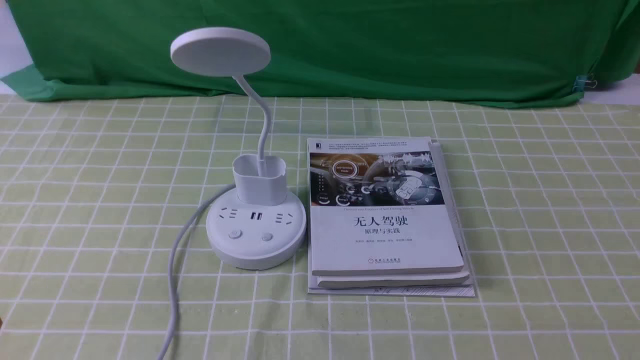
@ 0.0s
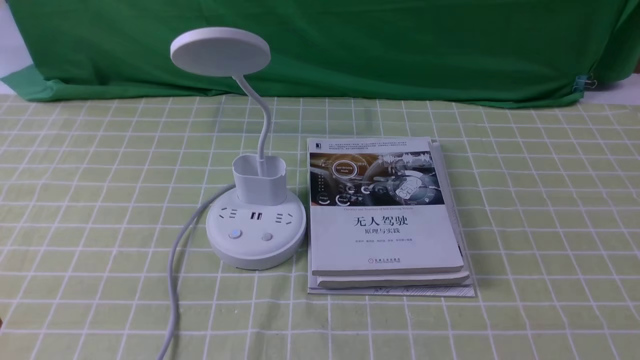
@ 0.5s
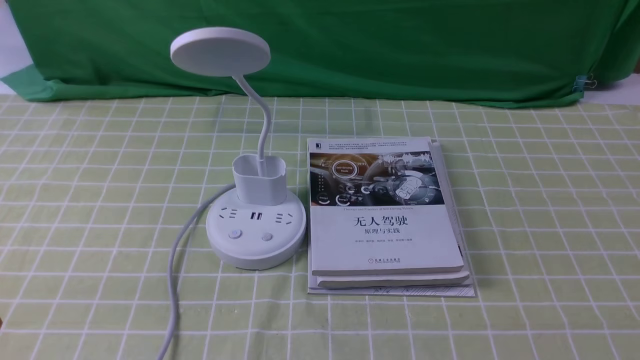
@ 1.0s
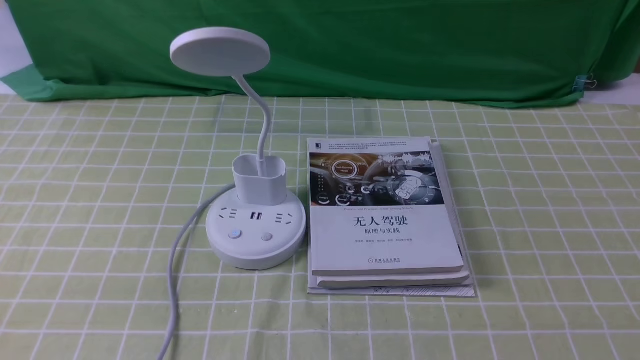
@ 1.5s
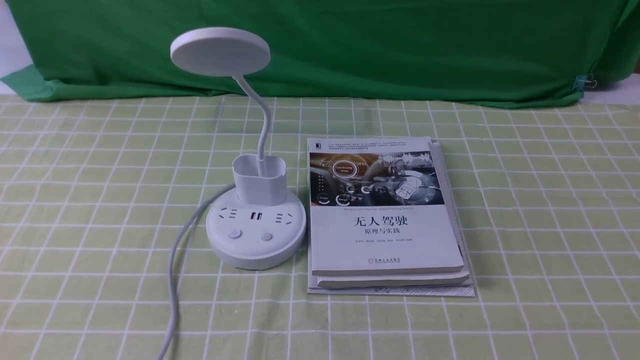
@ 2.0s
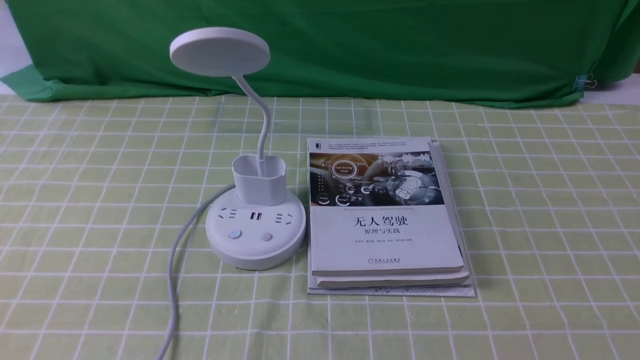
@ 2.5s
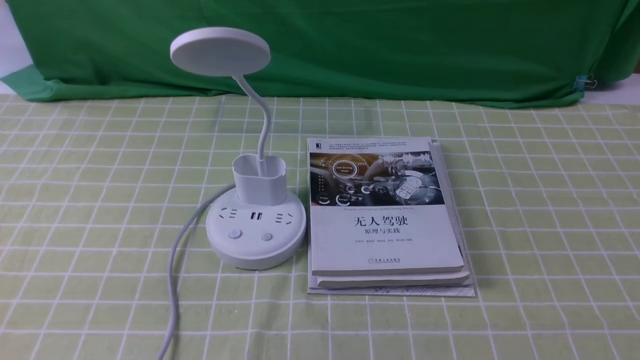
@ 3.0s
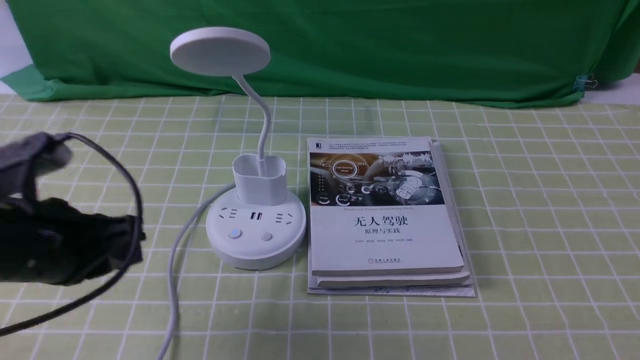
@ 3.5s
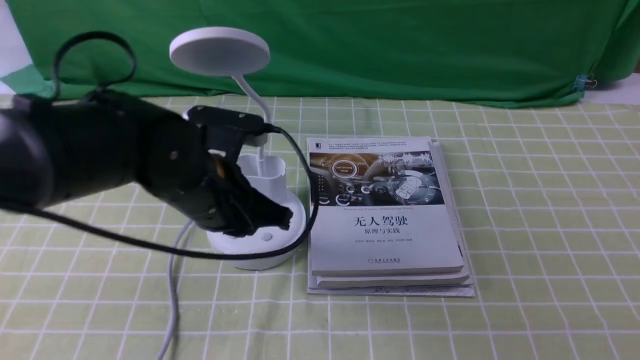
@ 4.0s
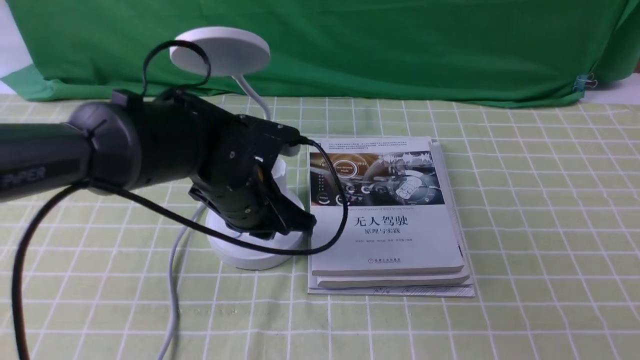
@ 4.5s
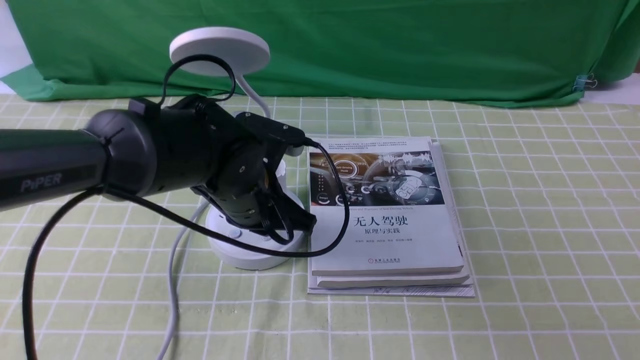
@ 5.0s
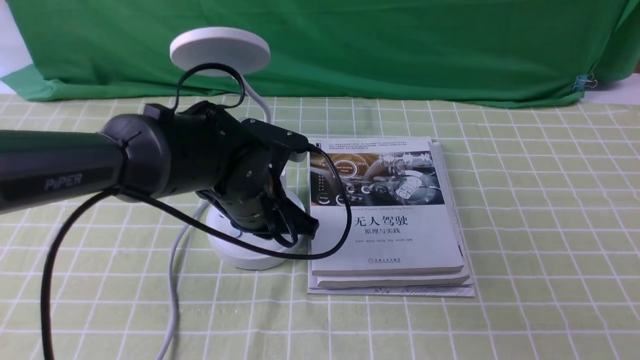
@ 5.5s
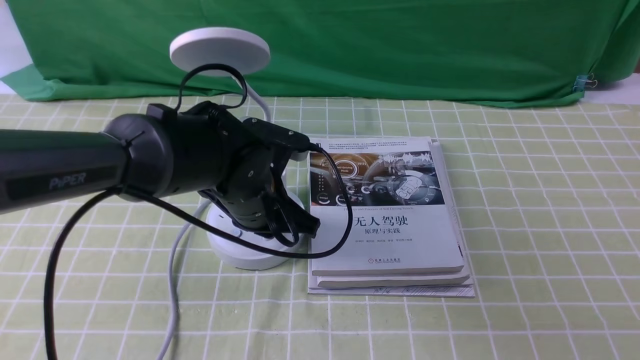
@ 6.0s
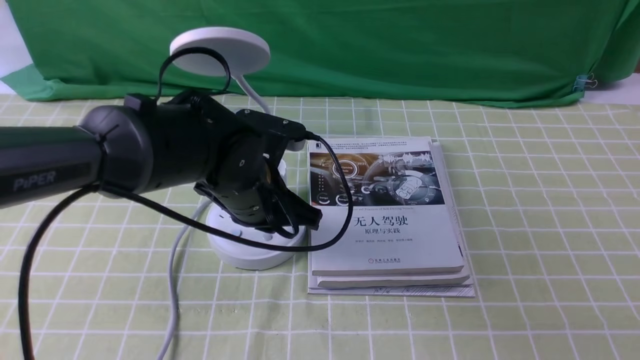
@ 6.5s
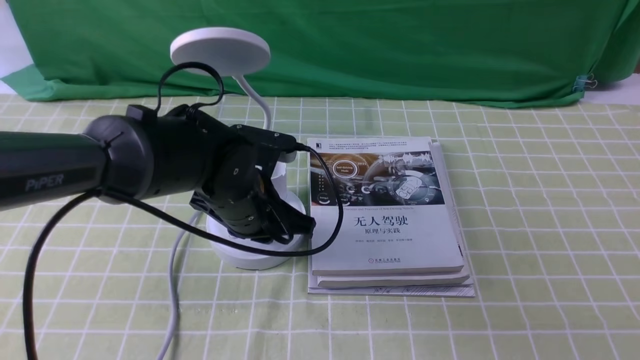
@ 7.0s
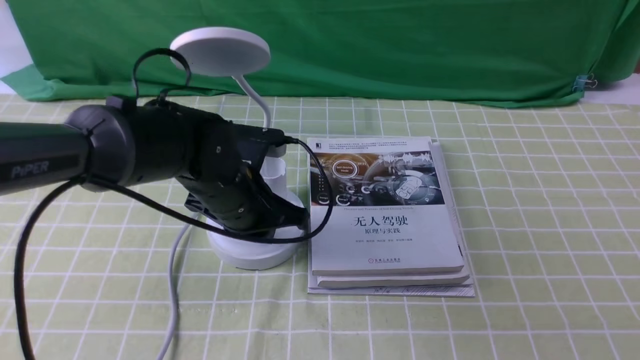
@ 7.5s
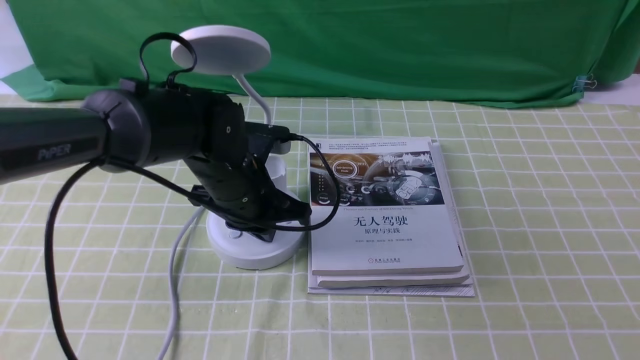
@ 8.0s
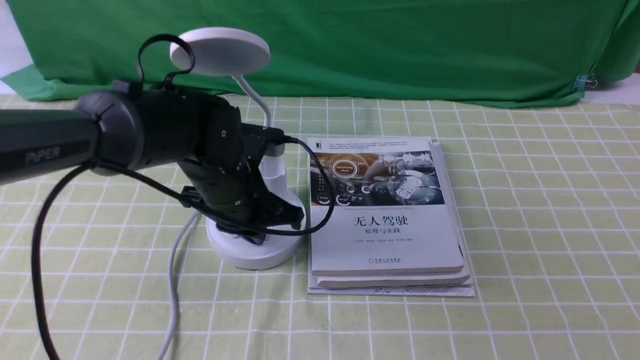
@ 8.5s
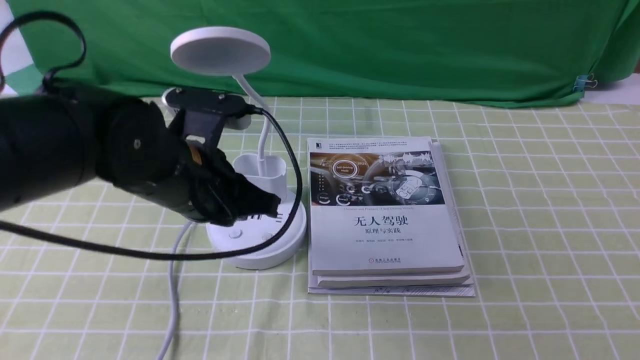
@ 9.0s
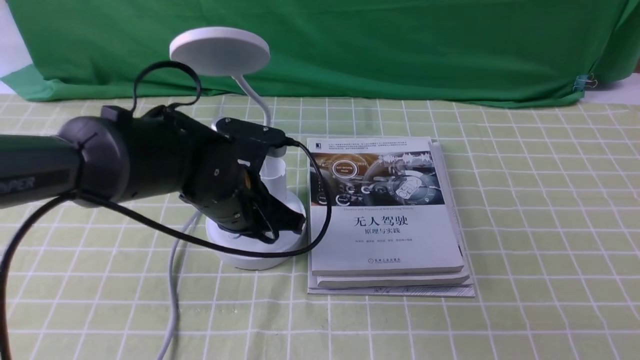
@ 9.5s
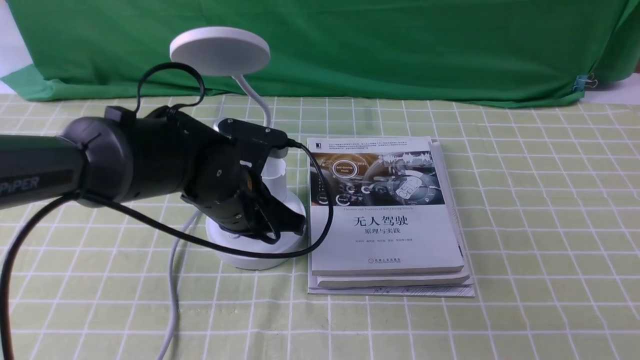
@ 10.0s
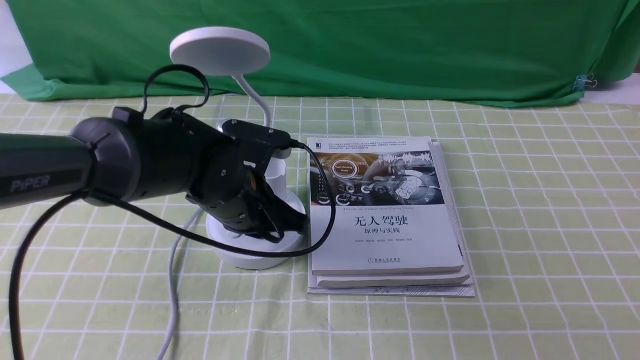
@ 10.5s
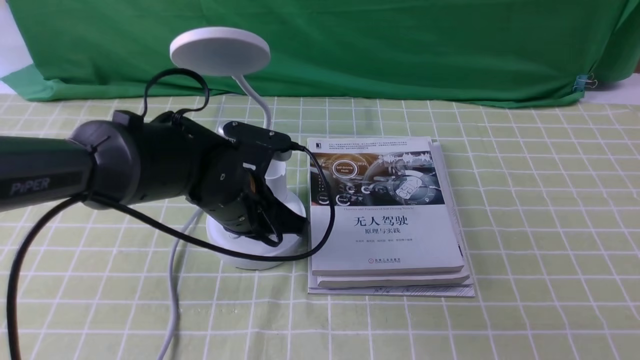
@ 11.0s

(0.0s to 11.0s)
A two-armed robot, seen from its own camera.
2.0s - 3.5s: The left gripper moves forward, some 15 cm, and opens.
3.5s - 5.5s: The left gripper heads to the right, forward and downward, covering some 20 cm, and closes.
5.5s - 7.5s: The grippers make only small movements.
7.5s - 9.0s: The left gripper shifts roughly 5 cm upward.
9.0s - 11.0s: The left gripper goes roughly 5 cm downward.

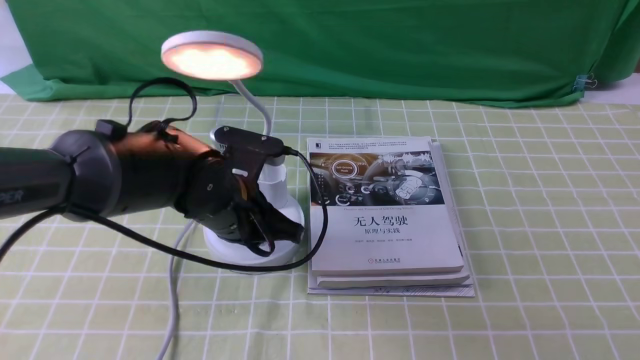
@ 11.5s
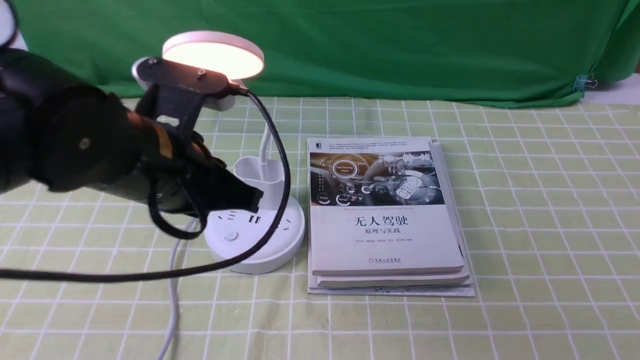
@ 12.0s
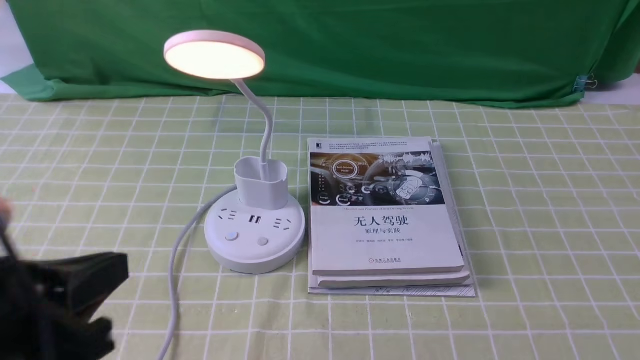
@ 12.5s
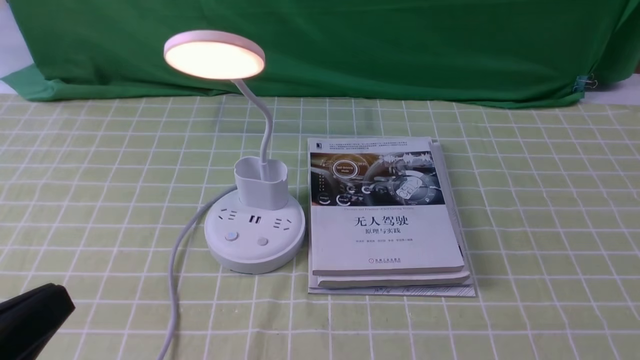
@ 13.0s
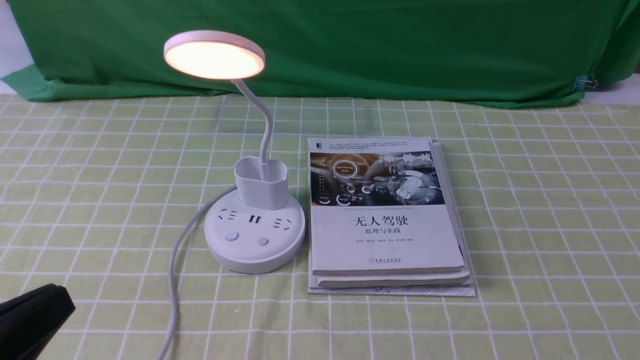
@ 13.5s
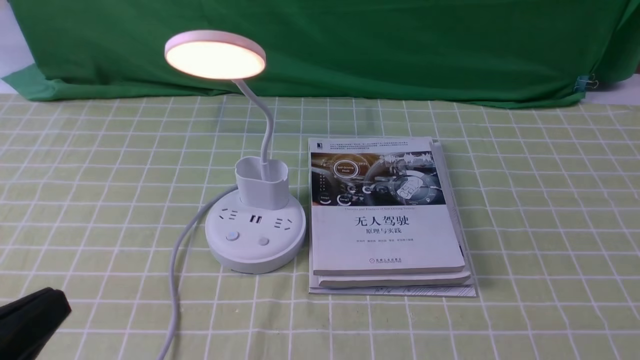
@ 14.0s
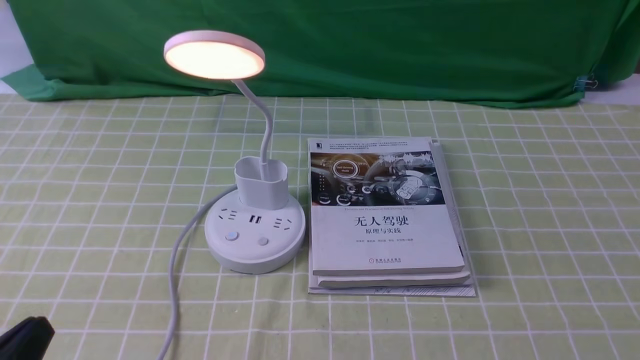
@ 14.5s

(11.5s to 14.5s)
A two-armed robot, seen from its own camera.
11.5s - 13.0s: The left gripper moves backward and to the left, roughly 30 cm.
13.0s - 14.5s: The left gripper moves downward, approximately 5 cm.

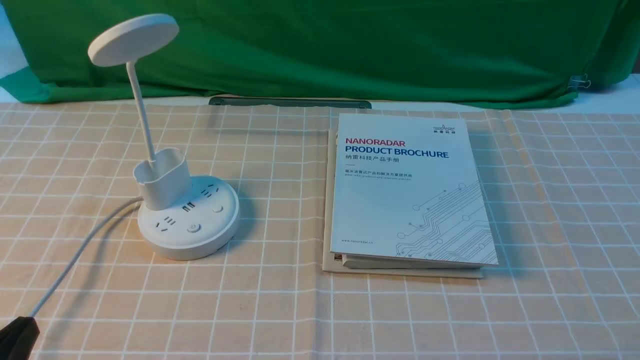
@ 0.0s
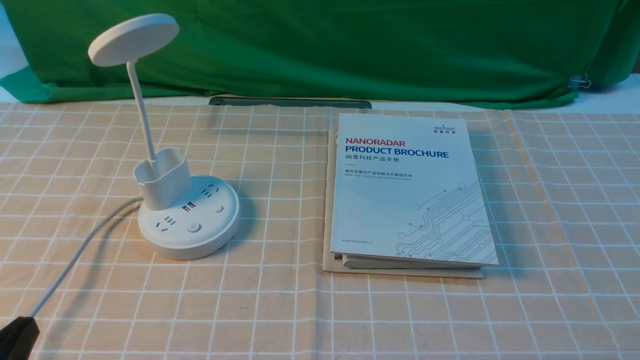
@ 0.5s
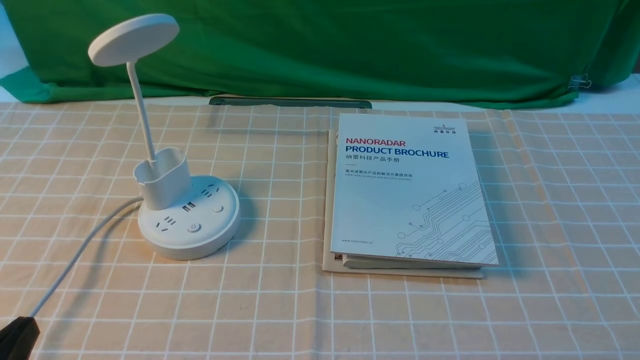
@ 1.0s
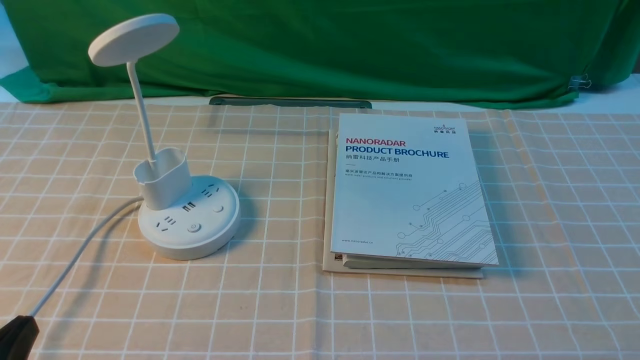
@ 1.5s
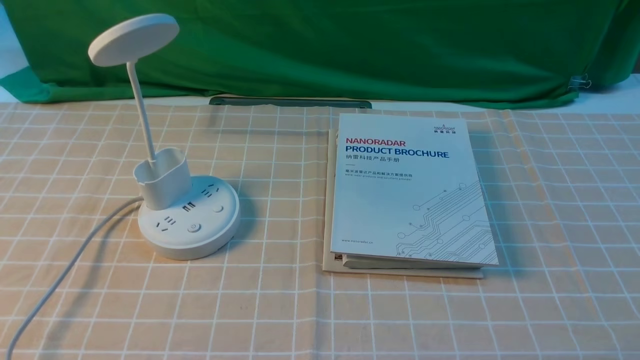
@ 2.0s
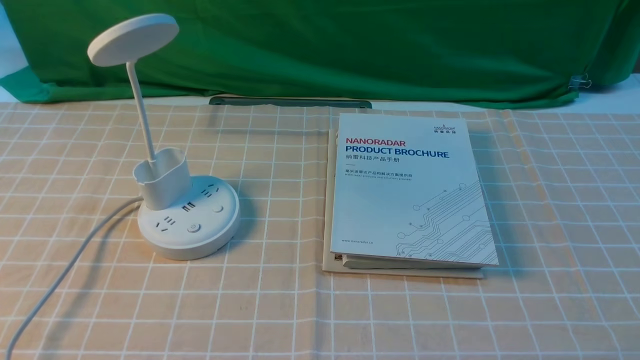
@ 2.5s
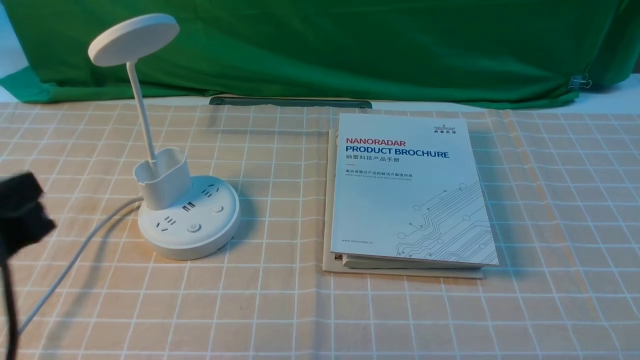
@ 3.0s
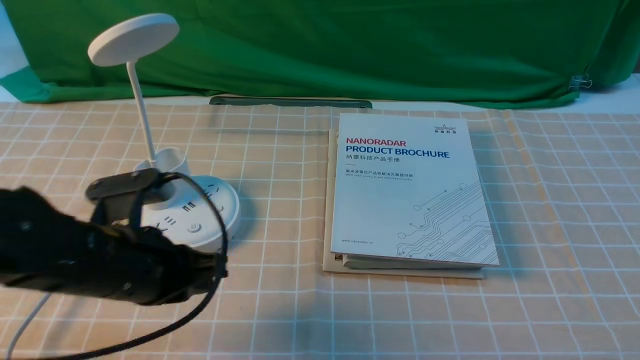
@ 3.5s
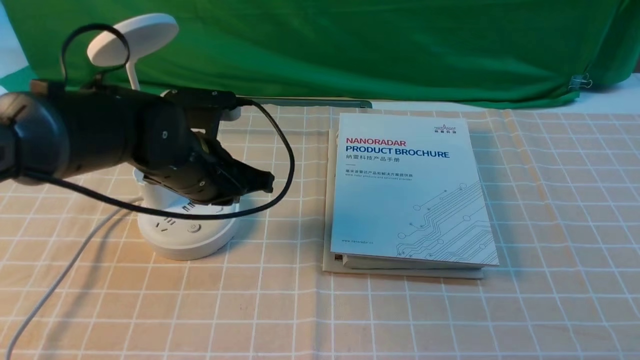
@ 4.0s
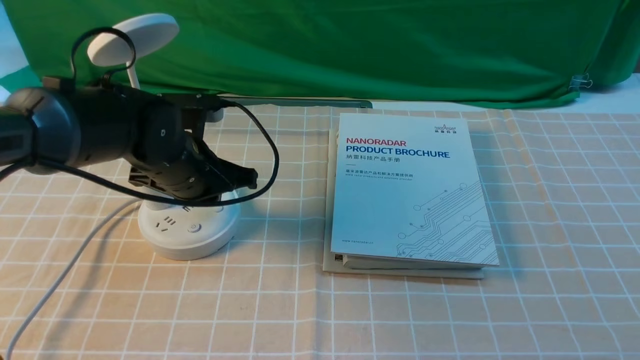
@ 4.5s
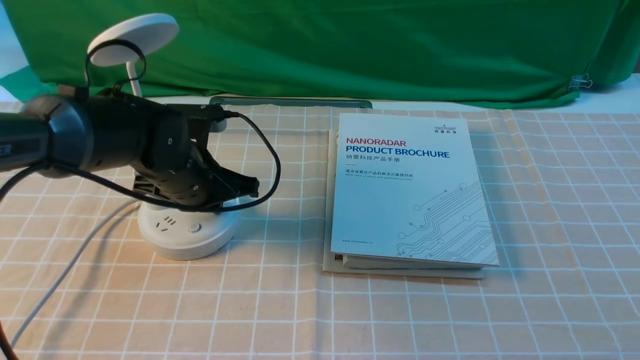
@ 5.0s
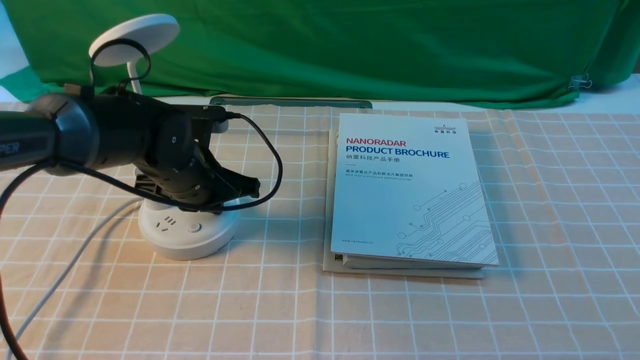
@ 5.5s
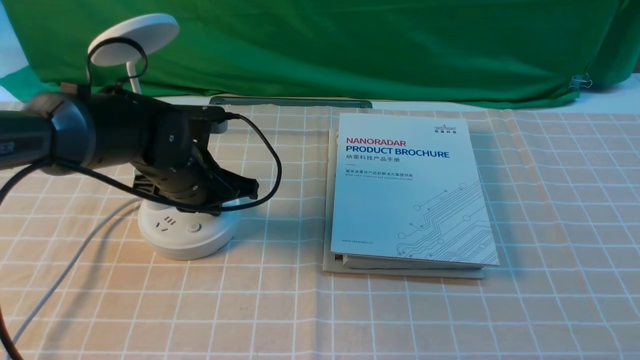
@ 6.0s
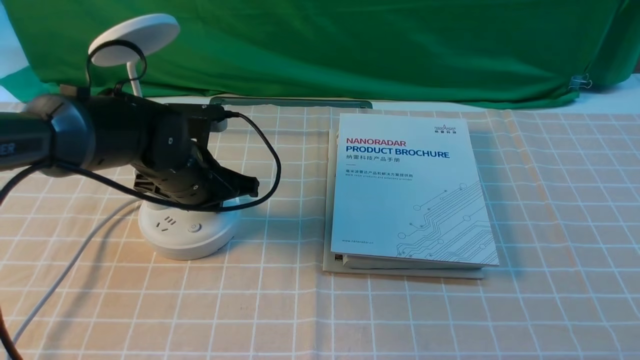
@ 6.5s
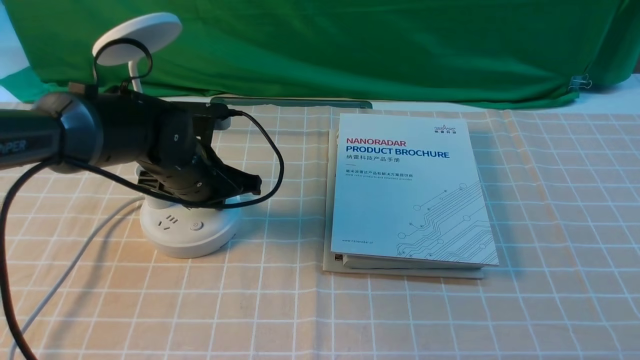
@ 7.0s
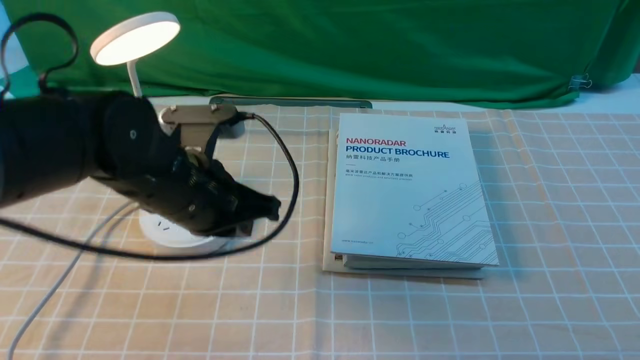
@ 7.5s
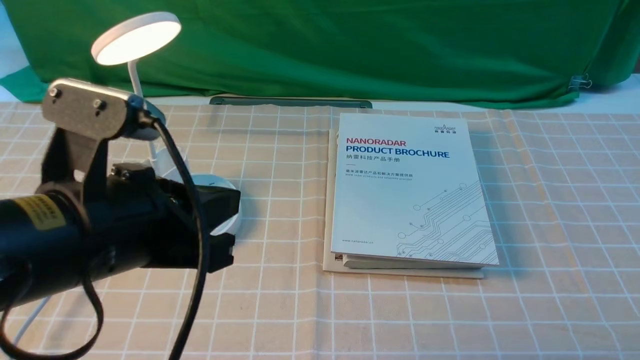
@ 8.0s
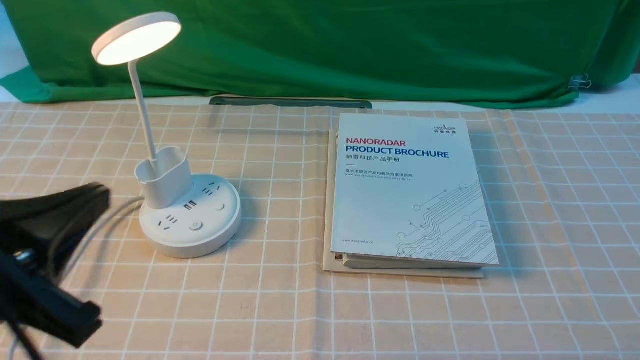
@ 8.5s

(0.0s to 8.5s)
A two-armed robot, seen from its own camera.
Step, 0.0s - 7.5s: use the left arm to press the button switch on the lamp holder.
2.0s - 4.0s: The left gripper moves forward and to the right, roughly 35 cm.
4.0s - 6.5s: The grippers stay close to where they were, moving slightly.
6.5s - 8.5s: The left gripper travels backward and upward by some 30 cm.
